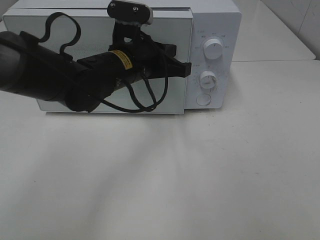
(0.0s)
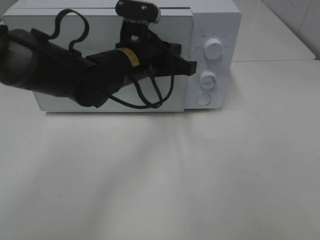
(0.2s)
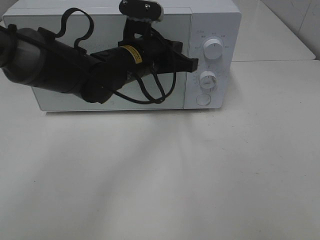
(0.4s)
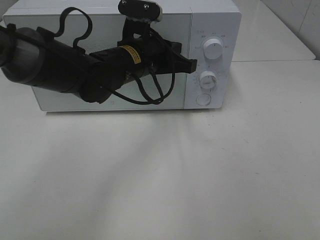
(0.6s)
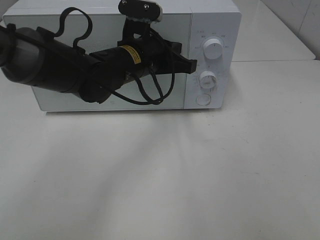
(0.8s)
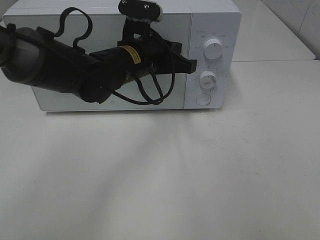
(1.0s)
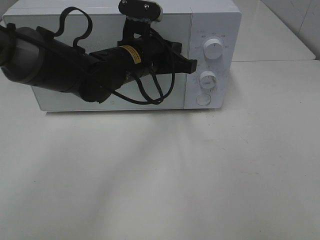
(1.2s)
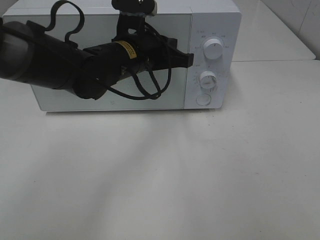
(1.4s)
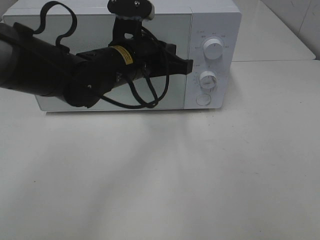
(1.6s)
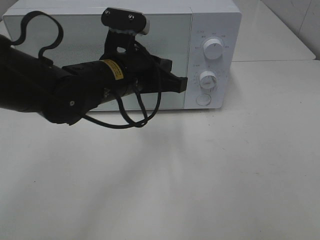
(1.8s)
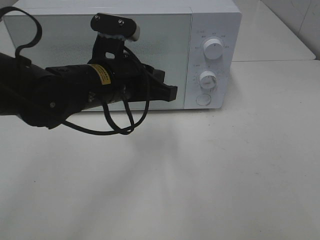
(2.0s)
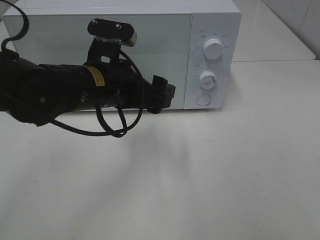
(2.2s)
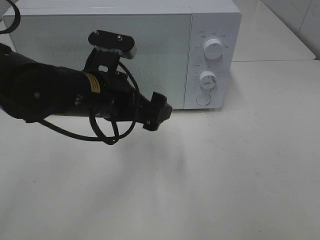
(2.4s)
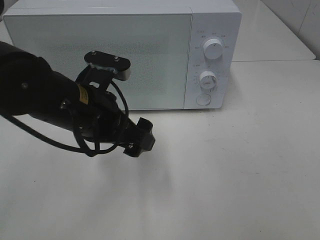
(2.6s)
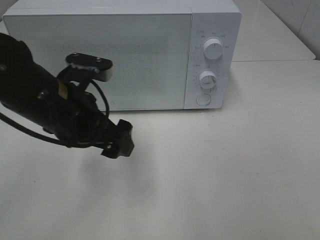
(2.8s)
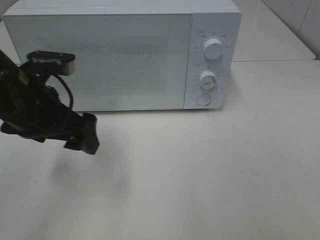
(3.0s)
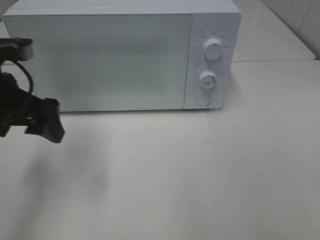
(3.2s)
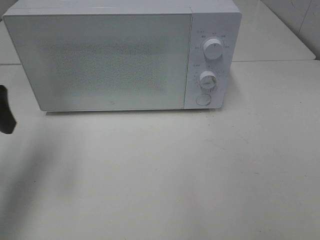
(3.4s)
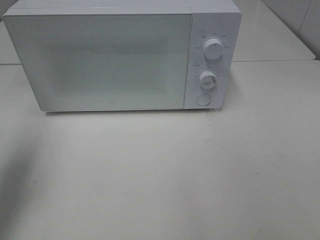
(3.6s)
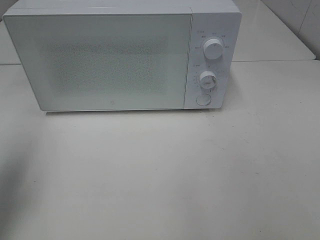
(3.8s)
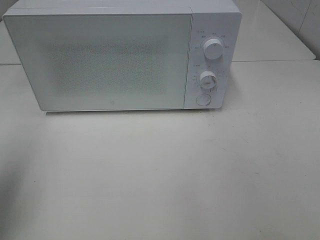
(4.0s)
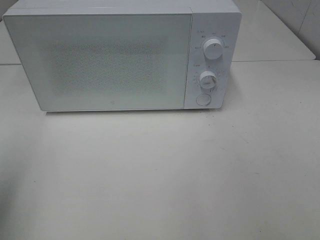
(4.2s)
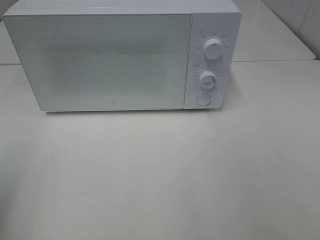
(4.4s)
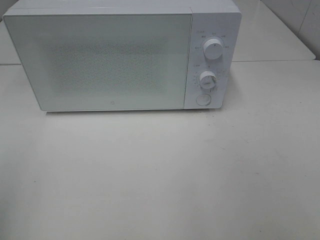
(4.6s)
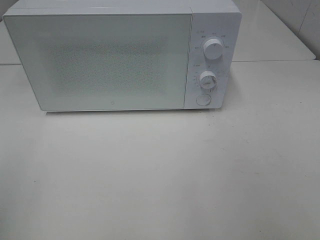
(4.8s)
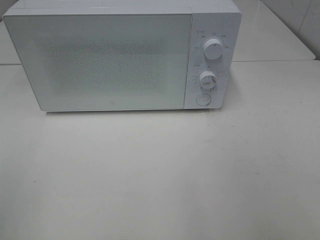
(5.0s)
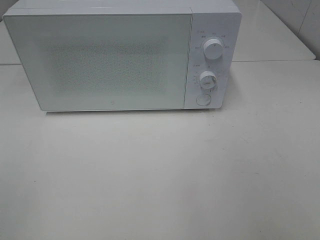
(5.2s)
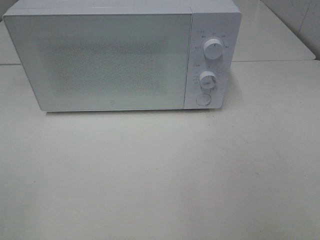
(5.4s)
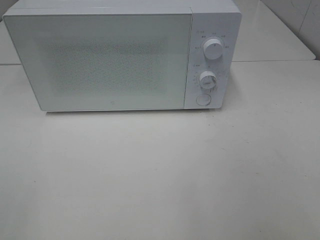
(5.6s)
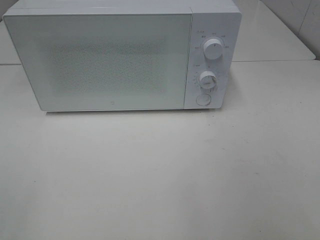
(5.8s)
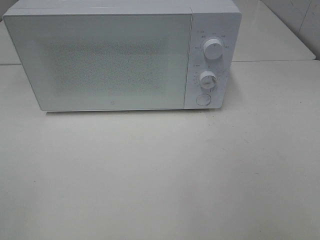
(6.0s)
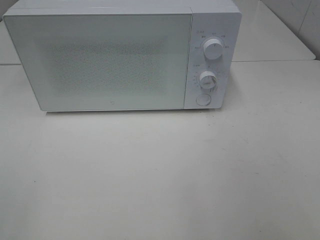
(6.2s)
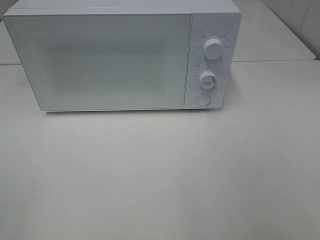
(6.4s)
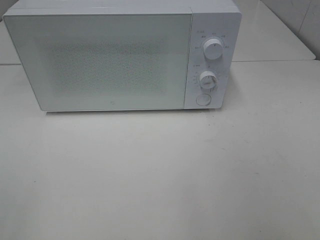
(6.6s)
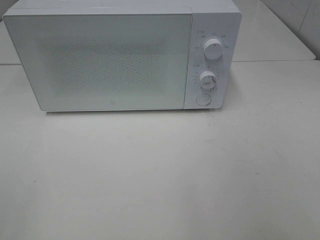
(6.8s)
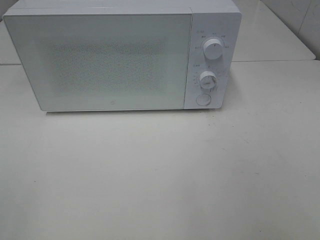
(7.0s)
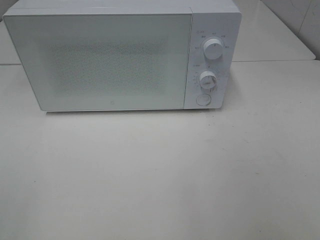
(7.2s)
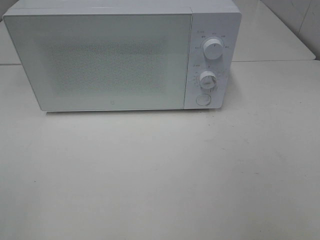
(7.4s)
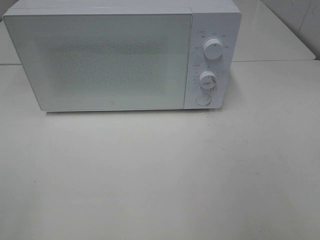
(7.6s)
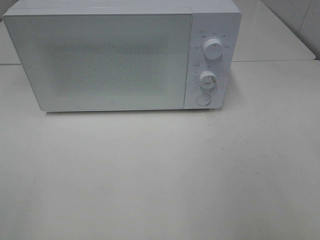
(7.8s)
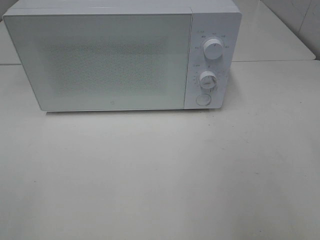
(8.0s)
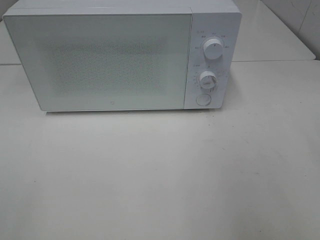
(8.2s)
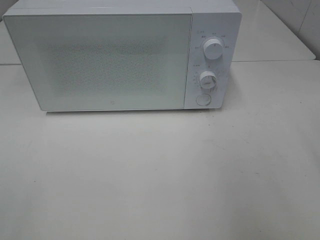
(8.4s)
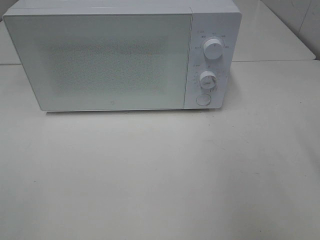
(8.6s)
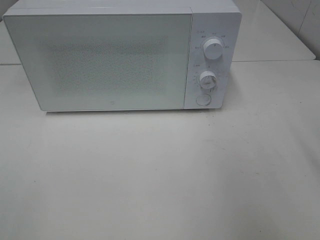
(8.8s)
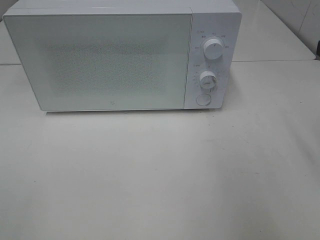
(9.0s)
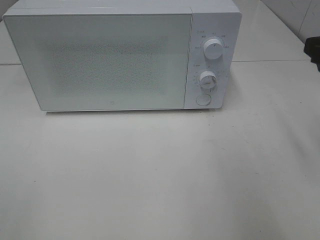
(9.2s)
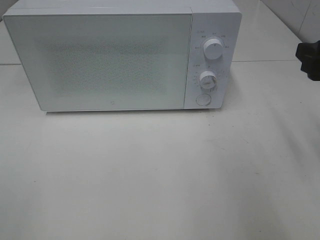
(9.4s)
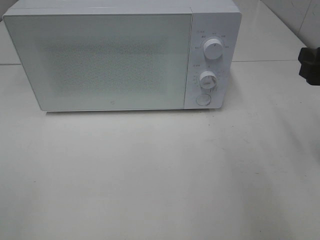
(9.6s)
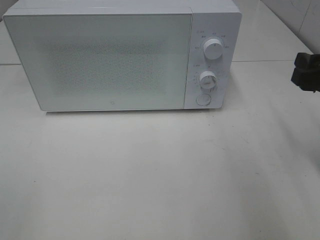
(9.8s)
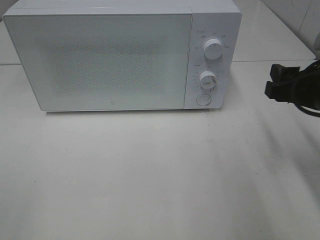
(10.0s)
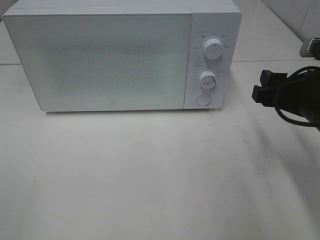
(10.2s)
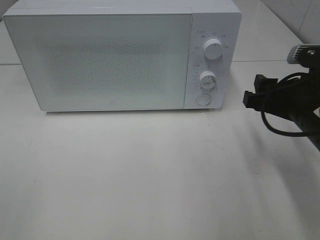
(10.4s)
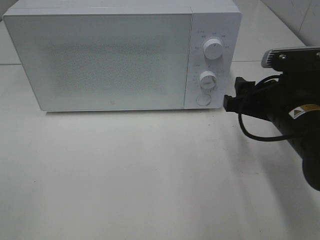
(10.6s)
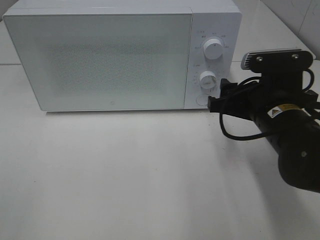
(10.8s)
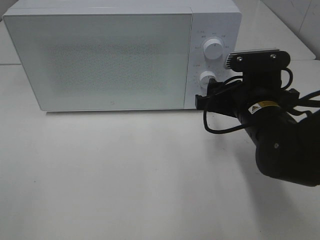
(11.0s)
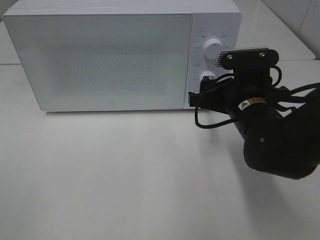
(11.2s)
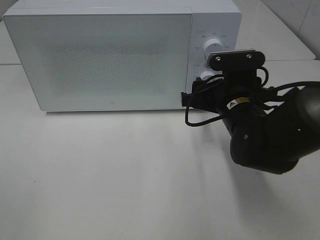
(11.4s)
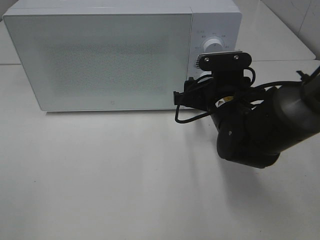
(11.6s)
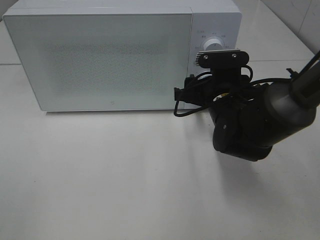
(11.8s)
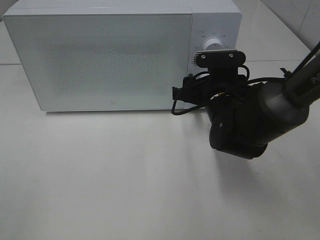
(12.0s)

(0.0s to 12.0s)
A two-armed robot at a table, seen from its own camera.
Task of the whole recording: Heat Sandwich.
0.0s - 1.6s: There are only small adjustments of the grippers.
1.6s - 3.0s: The left gripper travels to the left and backward by approximately 15 cm, and opens.
3.0s - 4.4s: The left gripper goes roughly 20 cm to the left, backward and upward.
9.0s - 10.4s: The right gripper is displaced downward and to the left by about 15 cm.
10.4s - 12.0s: The right gripper goes approximately 15 cm forward, to the left and downward.

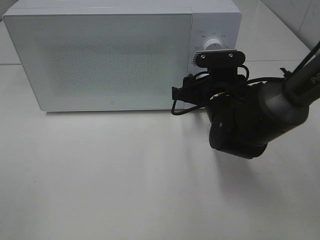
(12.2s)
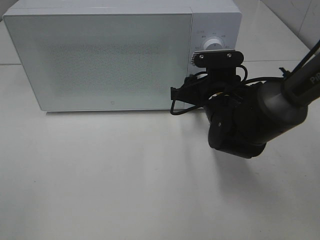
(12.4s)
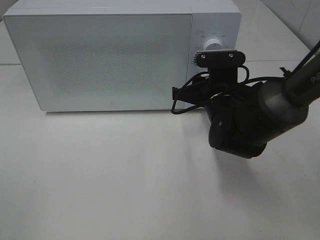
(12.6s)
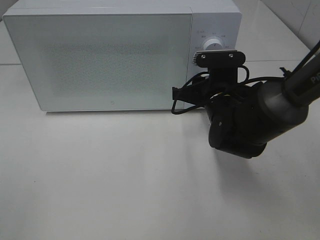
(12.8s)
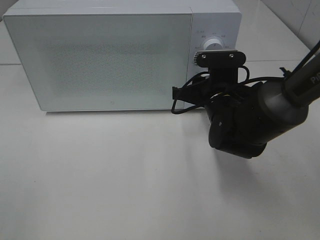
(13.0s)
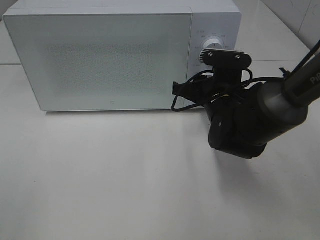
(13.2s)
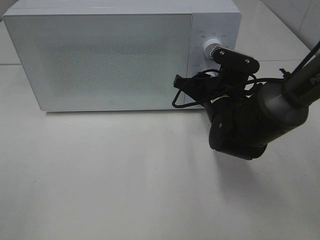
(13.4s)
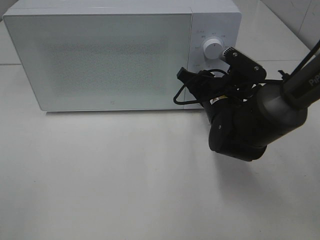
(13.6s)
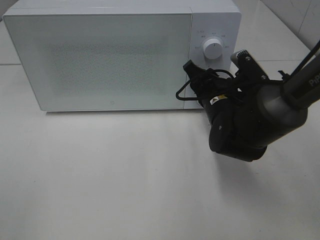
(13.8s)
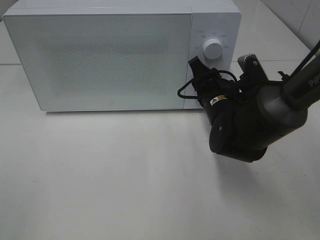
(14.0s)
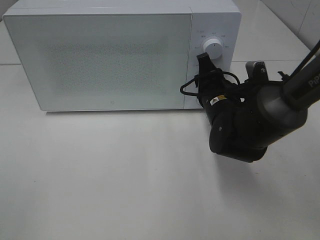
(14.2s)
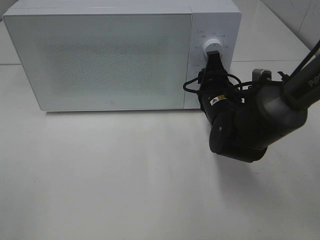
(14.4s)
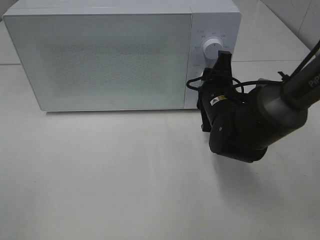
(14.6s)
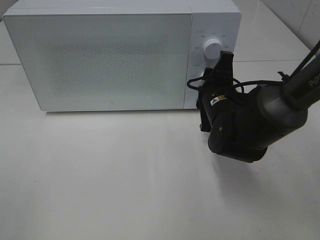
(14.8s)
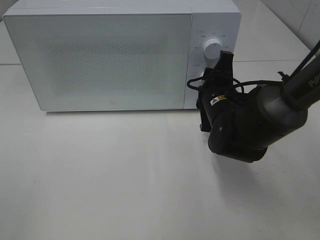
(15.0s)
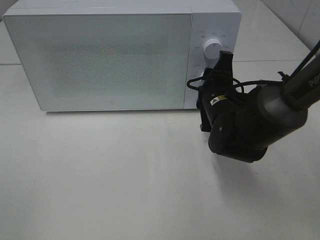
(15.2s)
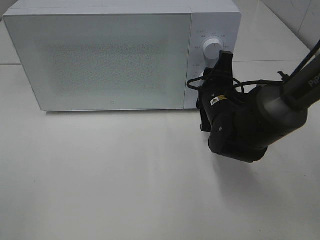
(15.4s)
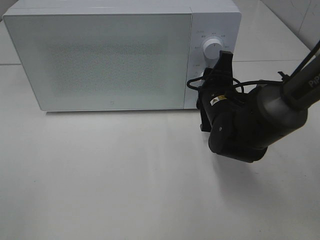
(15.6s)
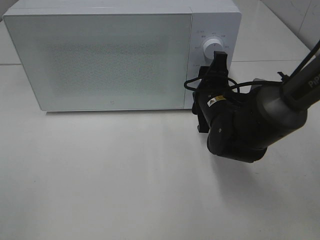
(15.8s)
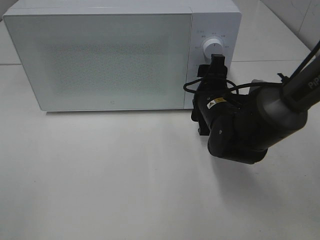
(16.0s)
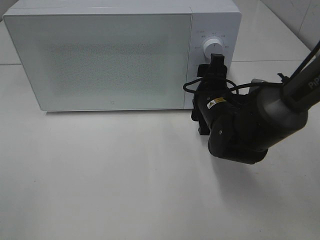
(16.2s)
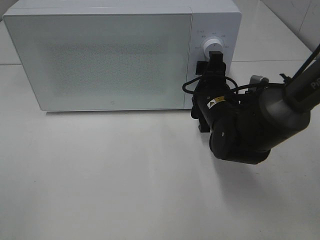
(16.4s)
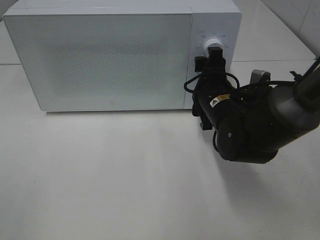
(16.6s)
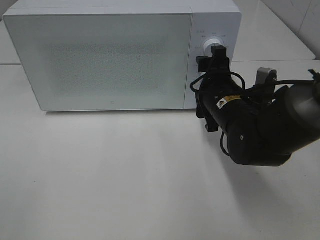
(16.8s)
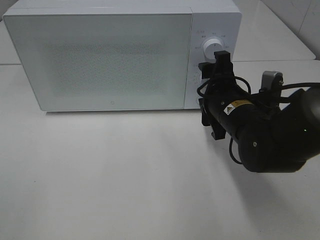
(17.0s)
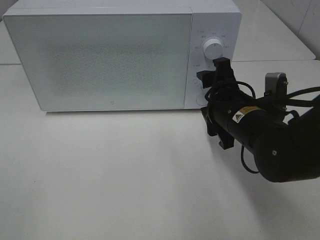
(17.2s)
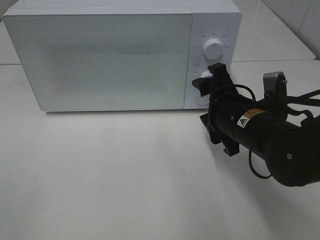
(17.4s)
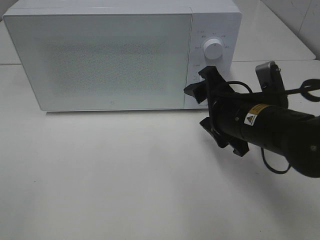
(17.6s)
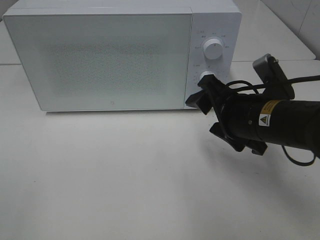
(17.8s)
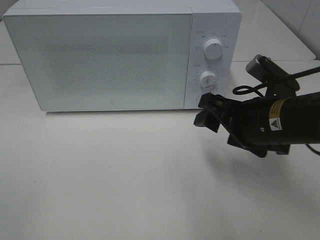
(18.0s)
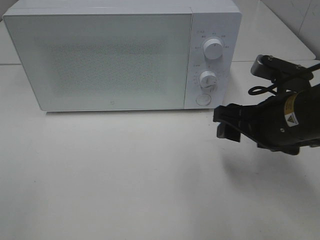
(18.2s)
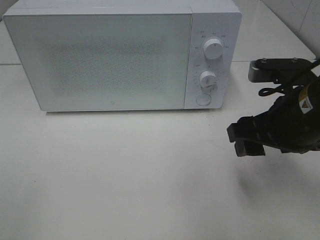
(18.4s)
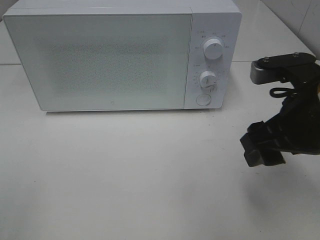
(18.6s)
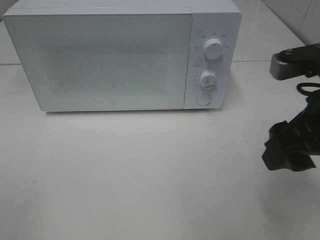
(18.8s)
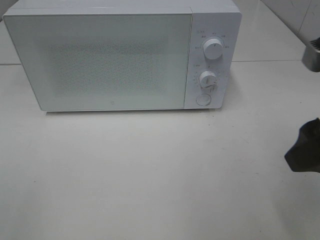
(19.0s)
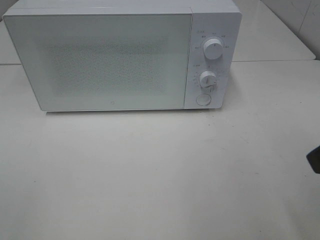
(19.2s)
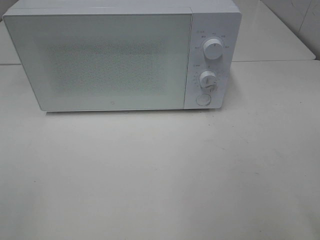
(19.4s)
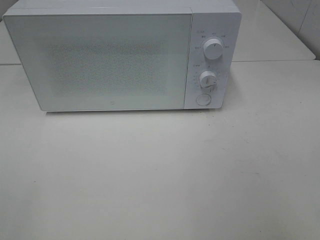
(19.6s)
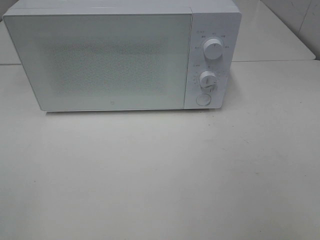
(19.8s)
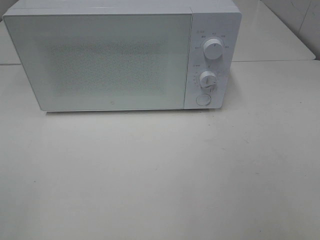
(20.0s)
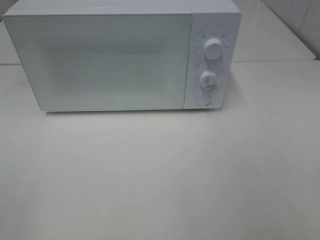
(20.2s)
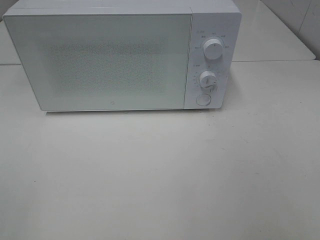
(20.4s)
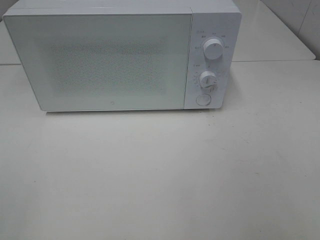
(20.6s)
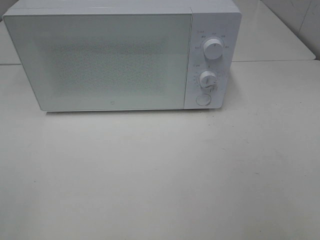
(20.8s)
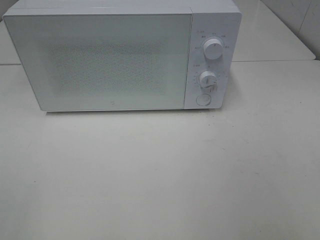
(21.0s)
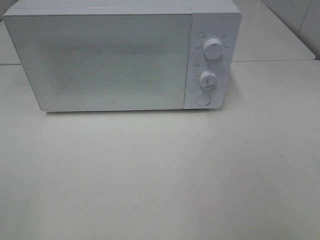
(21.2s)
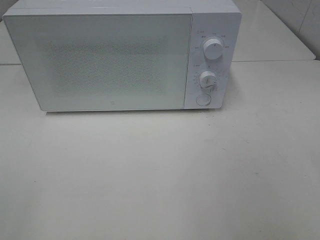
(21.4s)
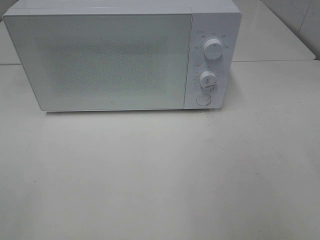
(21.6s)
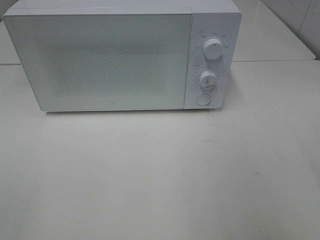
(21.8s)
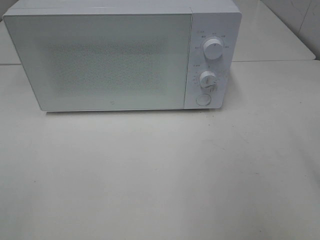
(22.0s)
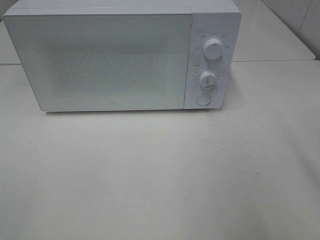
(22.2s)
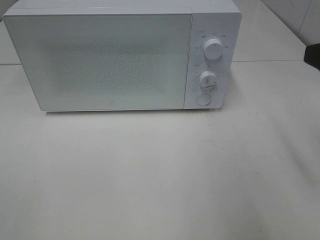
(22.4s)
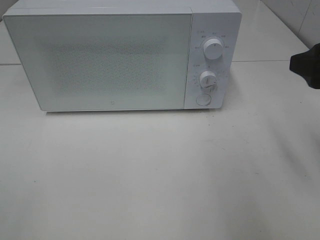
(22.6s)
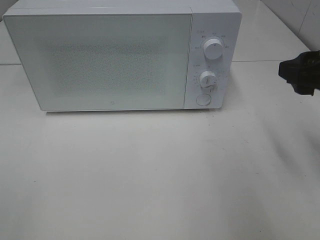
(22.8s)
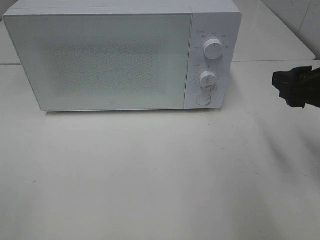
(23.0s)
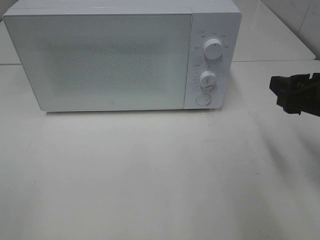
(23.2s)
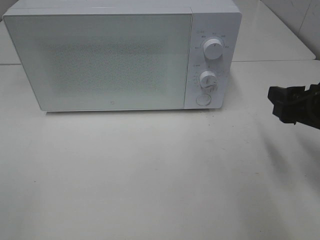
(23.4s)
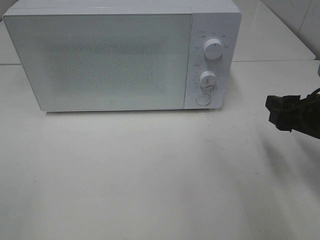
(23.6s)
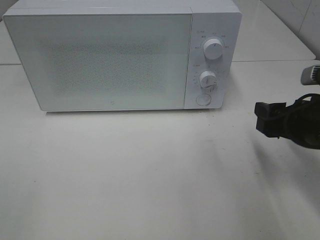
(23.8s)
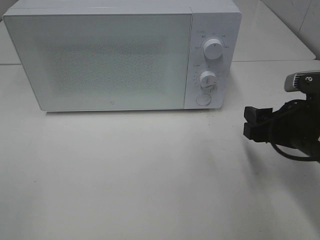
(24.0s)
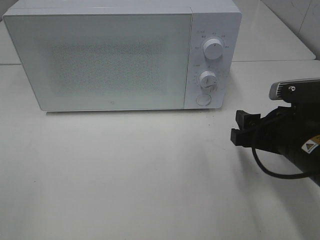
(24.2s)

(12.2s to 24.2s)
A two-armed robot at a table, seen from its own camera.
Task of the whole recording: Heat Sandwich.
Step, 12.2s - 17.0s: Right hand: twist timer button.
15.2s - 16.6s: The right gripper opens up.
16.6s - 18.2s: The right gripper goes approximately 10 cm backward, to the right and upward.
18.2s - 19.8s: The right gripper is displaced backward, to the right and upward by about 25 cm.
21.2s - 22.6s: The right gripper shifts some 20 cm forward.
22.6s - 24.2s: The right gripper heads downward and to the left, covering roughly 15 cm.
